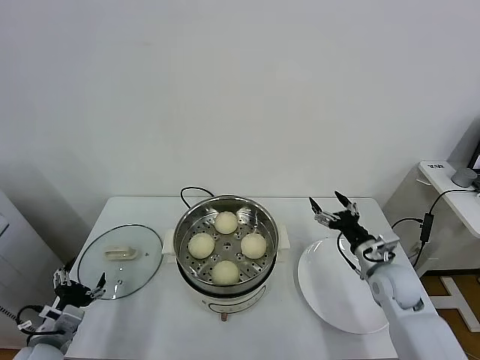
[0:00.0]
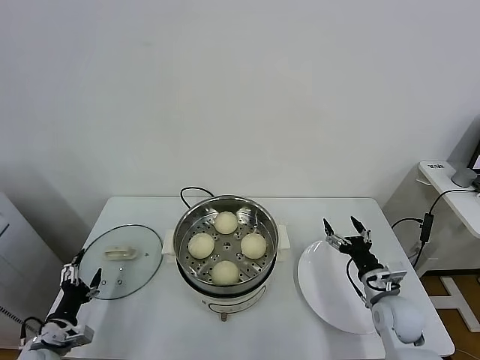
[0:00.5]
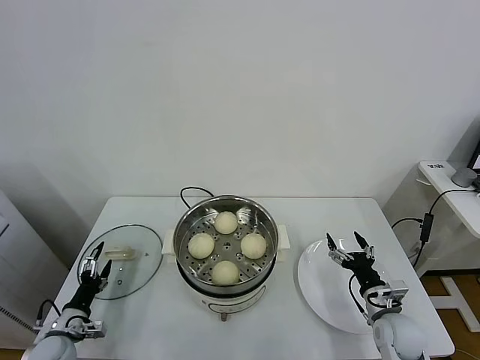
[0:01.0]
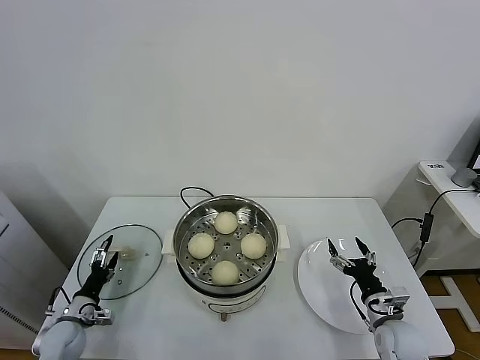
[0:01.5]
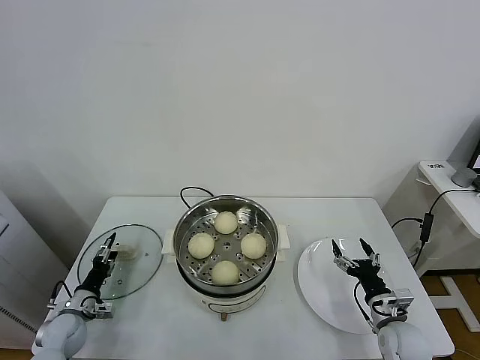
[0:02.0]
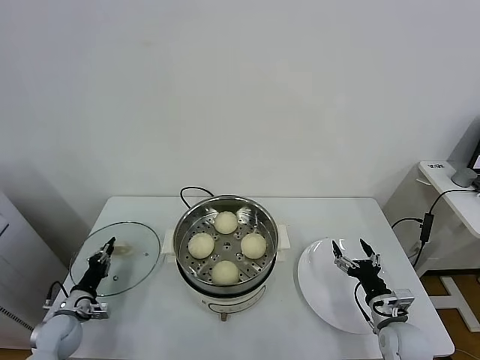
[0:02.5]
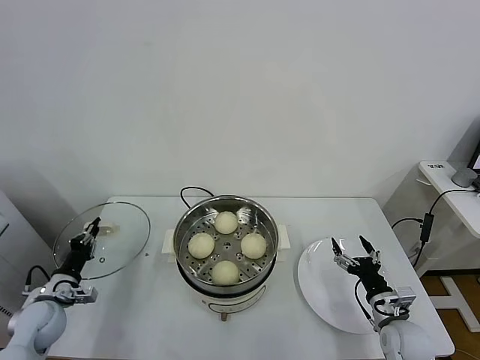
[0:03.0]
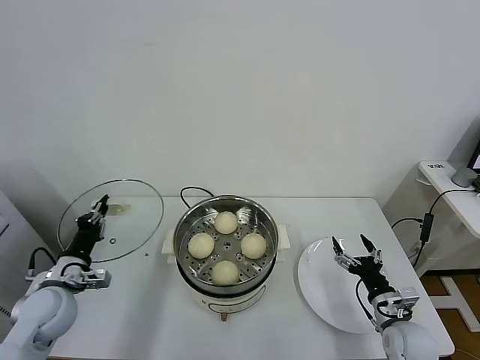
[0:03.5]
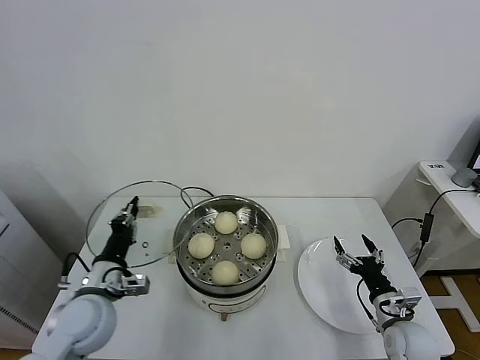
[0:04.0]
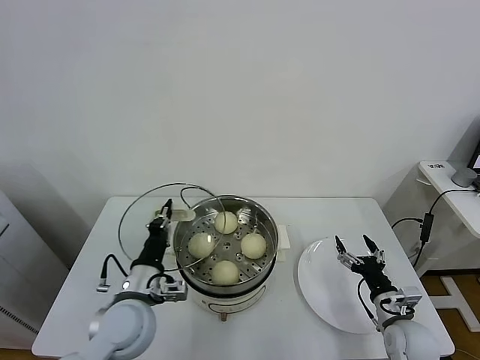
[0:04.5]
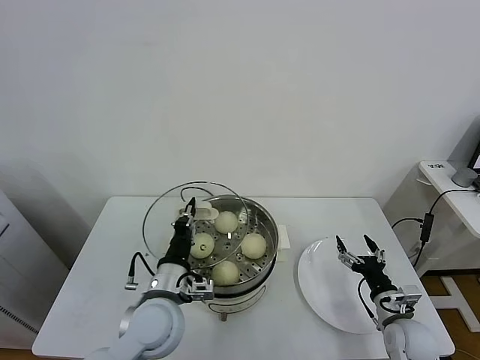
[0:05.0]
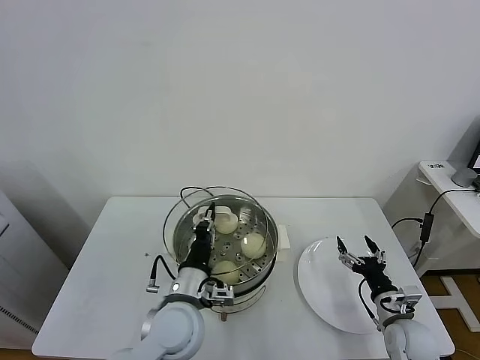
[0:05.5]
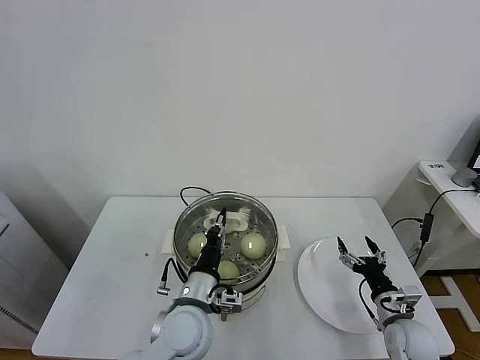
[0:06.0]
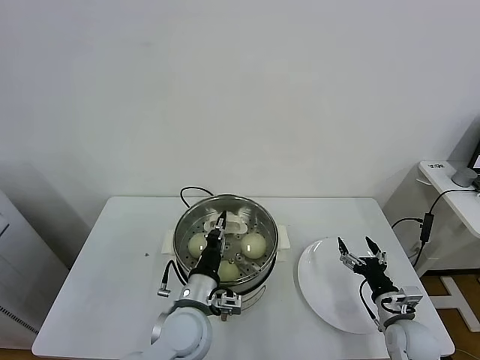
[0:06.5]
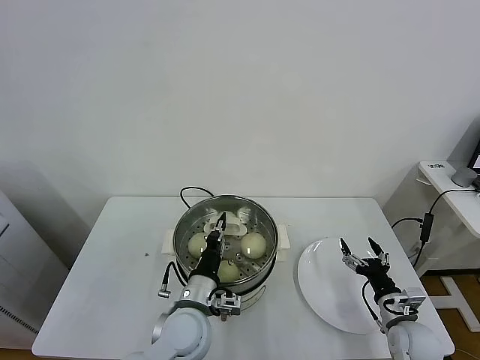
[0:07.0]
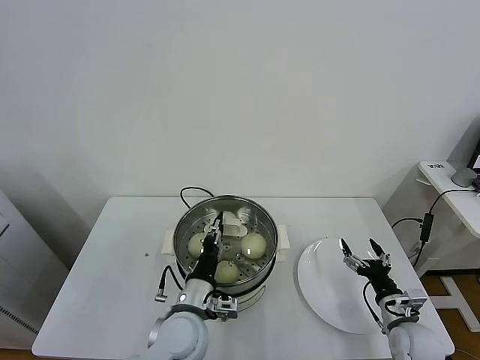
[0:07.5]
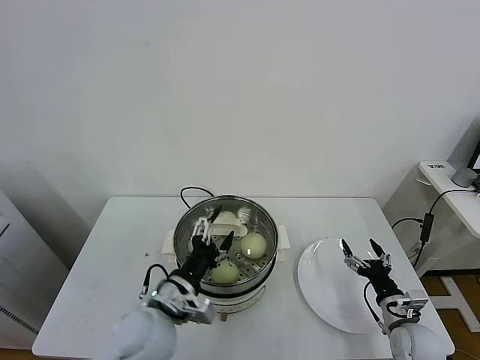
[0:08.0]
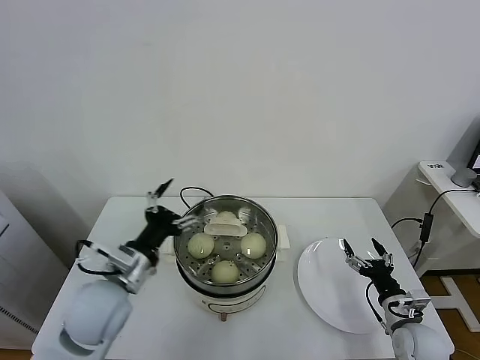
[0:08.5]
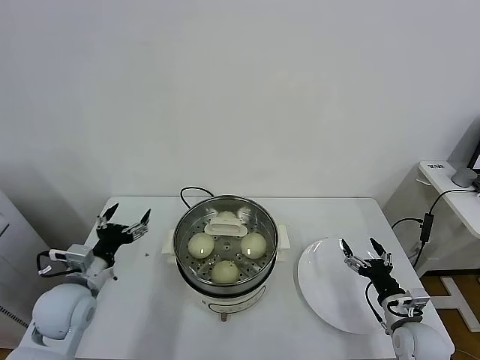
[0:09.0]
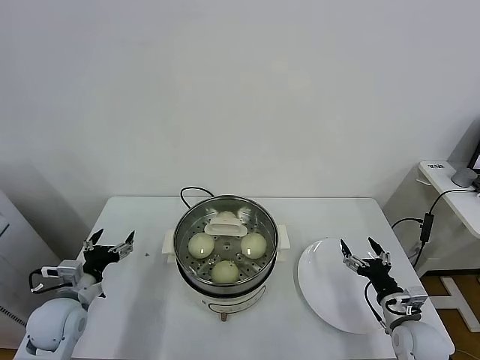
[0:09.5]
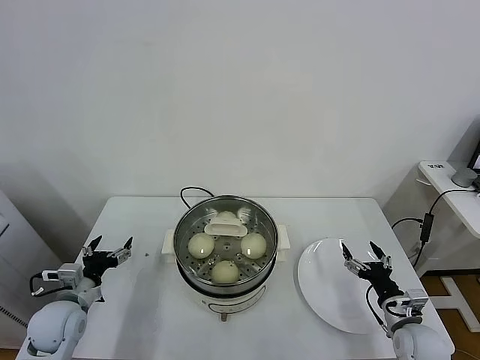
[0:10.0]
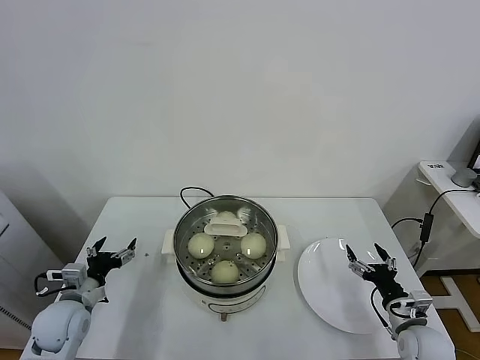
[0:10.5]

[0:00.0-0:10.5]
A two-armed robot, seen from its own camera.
Task of the whole recording: take steamed baozi put them in steamer.
Step, 0:00.0 to 0:02.5: Grasp the pot lid with left gripper.
Step, 0:03.0 to 0:08.0: Place the pot lid on the steamer with left gripper.
0:00.0 to 0:02.0: The right gripper goes about 15 cm backward and downward. Meanwhile the left gripper is displaced downward, forward and to the left by approximately 15 cm.
0:02.0 to 0:04.0: The left gripper travels upward and to the right by approximately 25 cm, and closes.
0:04.0 to 0:06.5: The left gripper goes approximately 20 cm to the right.
0:06.5 to 0:08.5: The left gripper shifts approximately 15 cm to the left and upward, and opens up.
0:08.5 to 0:10.5: The left gripper travels to the left and downward by some 20 cm.
